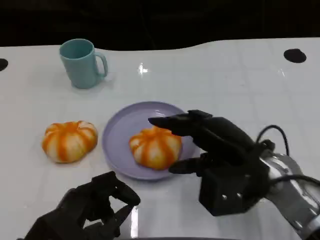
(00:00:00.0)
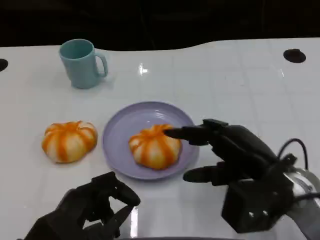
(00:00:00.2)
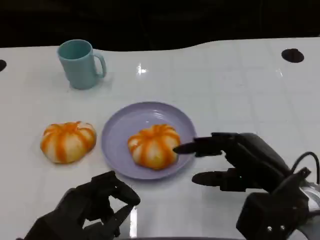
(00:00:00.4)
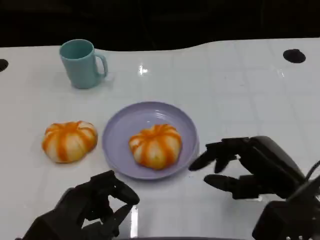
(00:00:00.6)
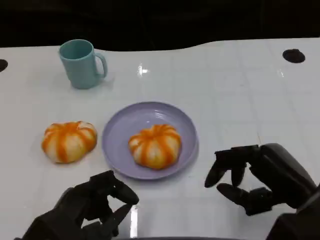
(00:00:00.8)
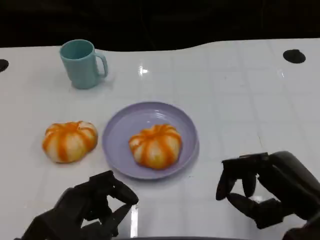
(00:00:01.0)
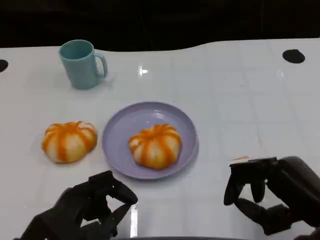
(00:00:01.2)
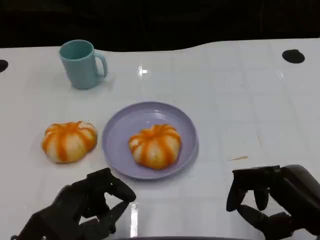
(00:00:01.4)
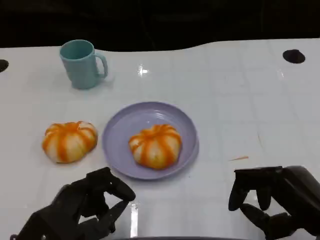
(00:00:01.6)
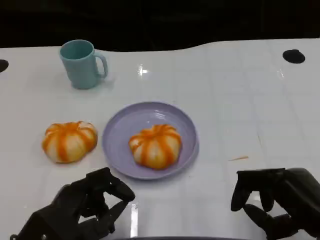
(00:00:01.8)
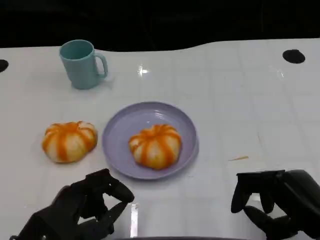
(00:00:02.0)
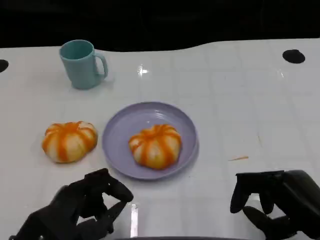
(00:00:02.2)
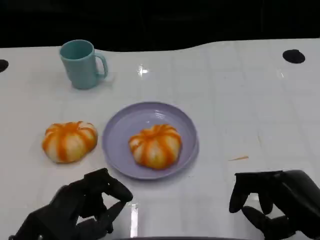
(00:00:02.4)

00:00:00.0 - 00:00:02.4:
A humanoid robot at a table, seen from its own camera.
Task of the whole recording: Grasp the bread from the table and place it into the plate.
00:00:00.0 - 00:00:01.2: The right hand heads backward and to the right, covering approximately 10 cm.
00:00:01.2 - 00:00:02.4: The hands move only a little.

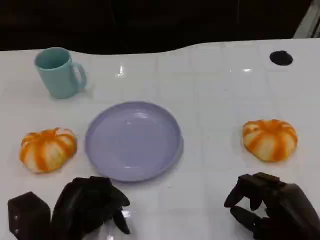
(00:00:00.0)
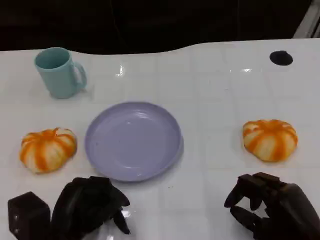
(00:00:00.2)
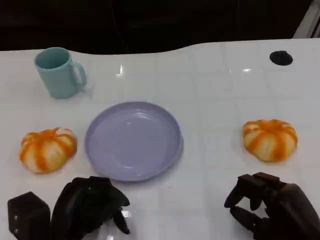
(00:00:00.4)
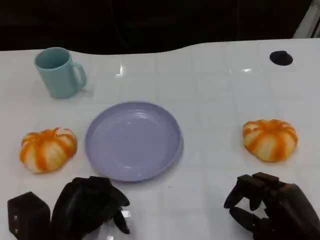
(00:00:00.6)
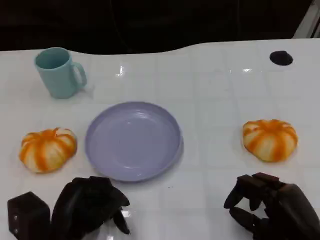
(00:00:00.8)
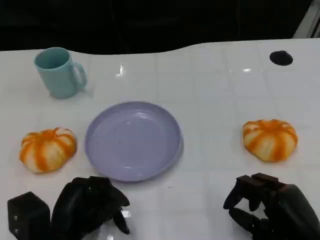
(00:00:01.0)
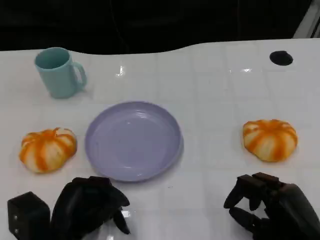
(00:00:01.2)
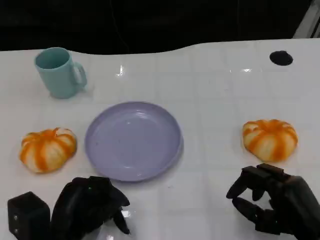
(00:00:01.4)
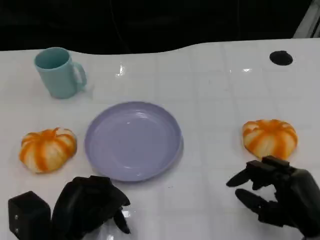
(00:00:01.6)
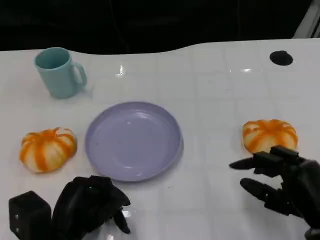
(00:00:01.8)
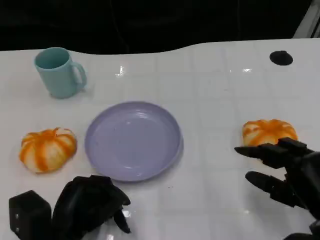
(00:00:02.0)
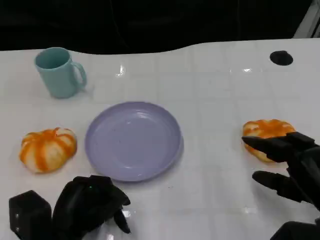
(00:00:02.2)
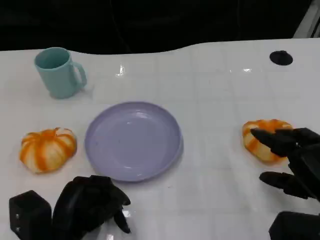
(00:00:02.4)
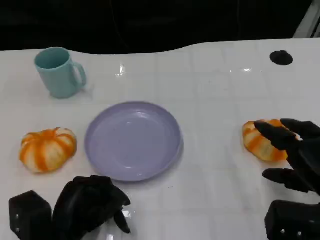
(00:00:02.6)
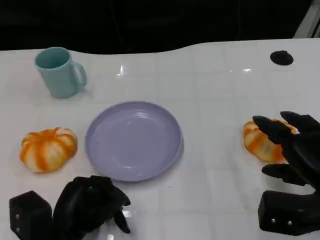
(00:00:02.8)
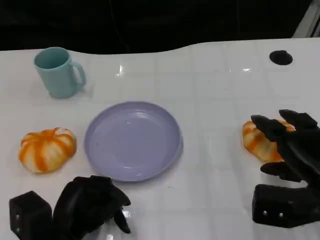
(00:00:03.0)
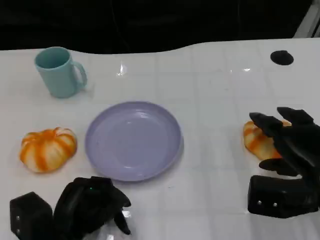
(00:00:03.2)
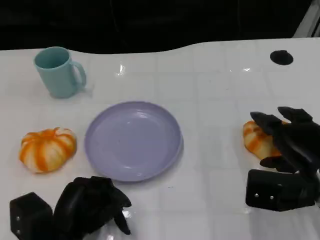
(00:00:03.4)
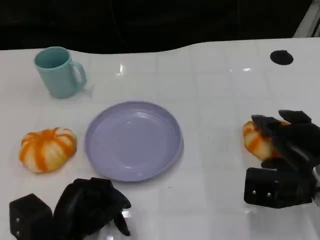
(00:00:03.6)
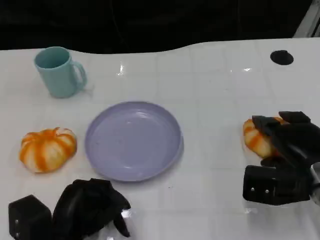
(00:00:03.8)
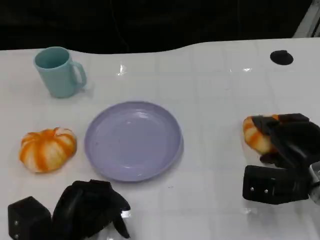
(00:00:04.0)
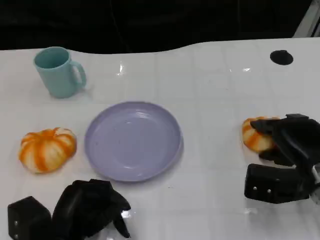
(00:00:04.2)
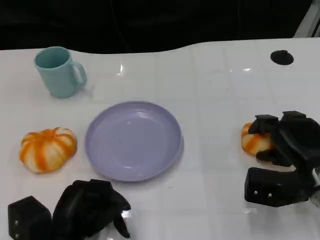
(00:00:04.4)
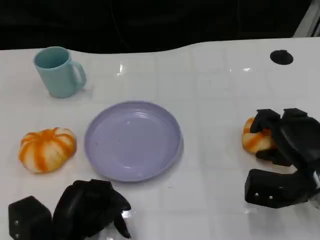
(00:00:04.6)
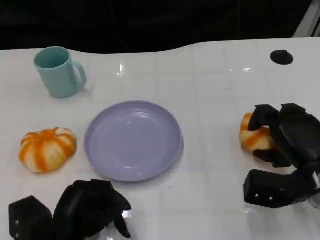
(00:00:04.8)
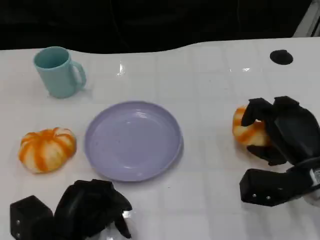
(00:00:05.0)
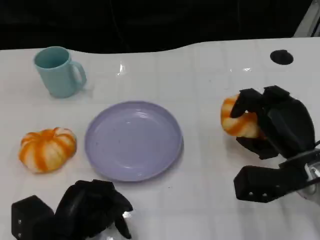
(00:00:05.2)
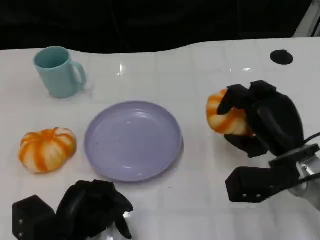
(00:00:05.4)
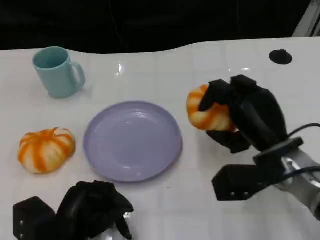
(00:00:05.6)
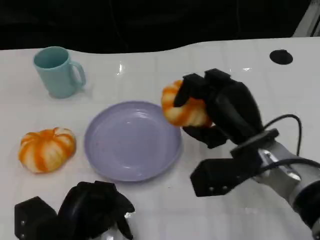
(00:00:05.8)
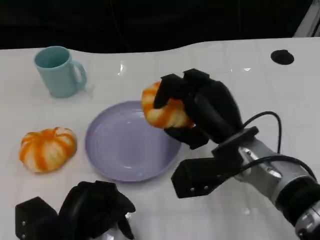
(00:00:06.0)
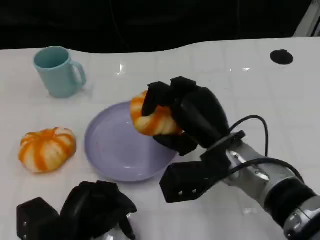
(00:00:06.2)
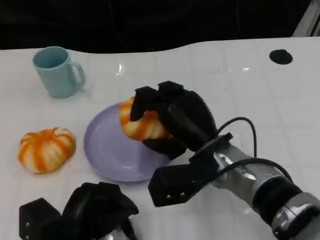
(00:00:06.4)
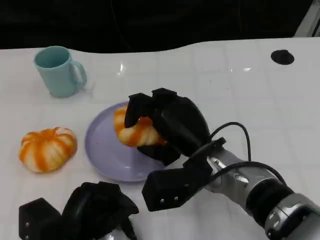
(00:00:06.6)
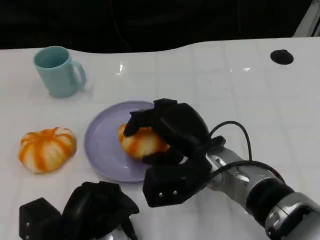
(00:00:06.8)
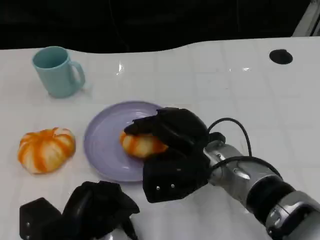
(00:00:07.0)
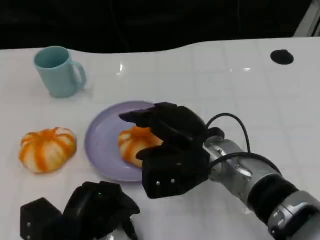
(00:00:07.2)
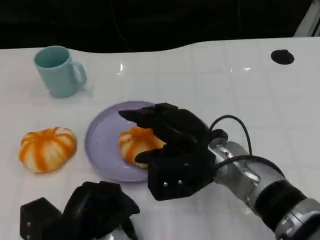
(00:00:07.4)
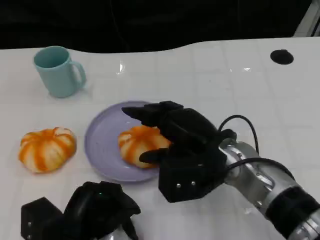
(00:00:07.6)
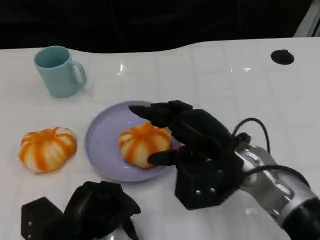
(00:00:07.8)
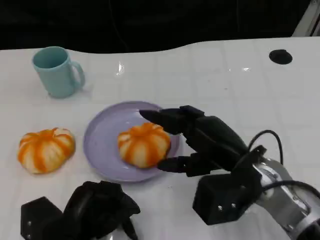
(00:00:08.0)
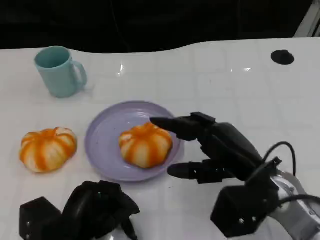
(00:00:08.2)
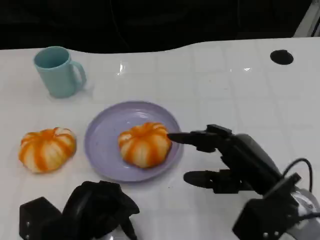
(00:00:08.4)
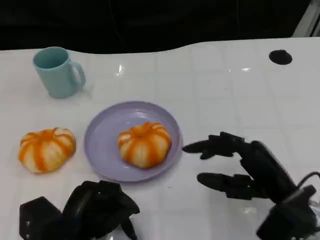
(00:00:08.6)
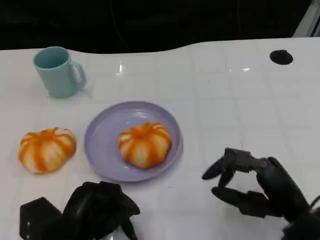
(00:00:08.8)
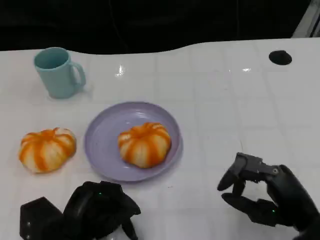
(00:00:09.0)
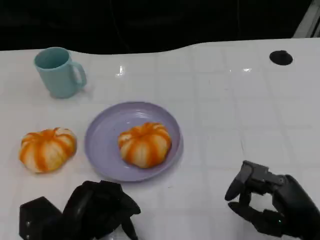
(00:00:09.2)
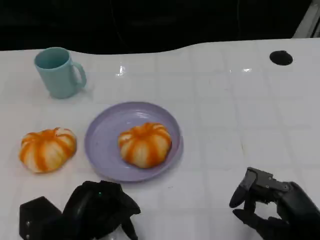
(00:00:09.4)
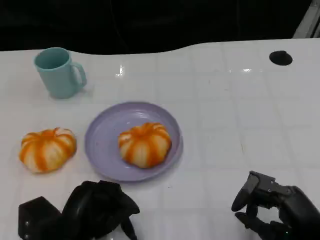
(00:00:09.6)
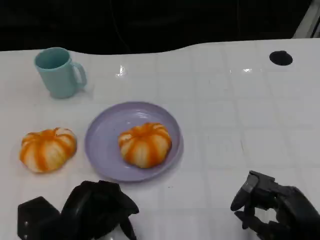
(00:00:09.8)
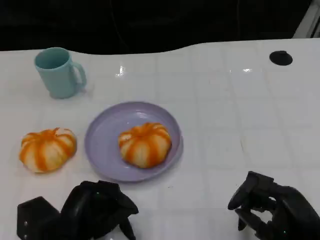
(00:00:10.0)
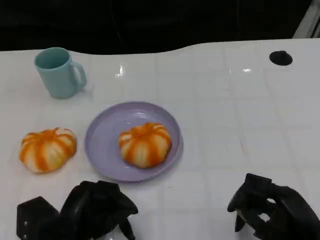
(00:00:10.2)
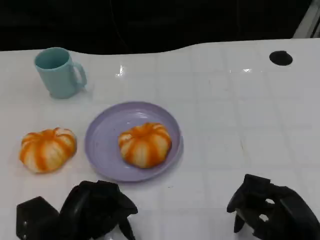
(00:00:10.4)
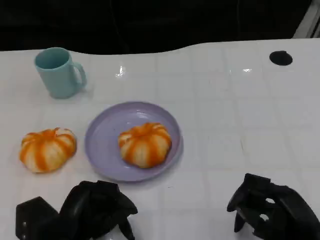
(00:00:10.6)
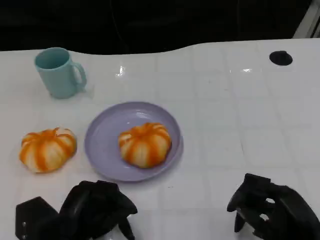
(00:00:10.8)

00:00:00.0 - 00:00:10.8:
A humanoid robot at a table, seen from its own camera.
Task of the whole recording: Grasp the bread from the table and place it into the plate.
00:00:00.0 - 00:00:01.6: The hands make only small movements.
00:00:01.6 - 00:00:03.0: The right hand travels forward by some 5 cm.
00:00:03.0 - 00:00:04.6: The right hand shifts by approximately 5 cm.
00:00:04.6 - 00:00:06.2: The right hand goes roughly 15 cm to the left.
00:00:07.8 - 00:00:09.2: The right hand shifts roughly 15 cm to the right, backward and downward.
00:00:09.2 - 00:00:10.8: The hands make only small movements.

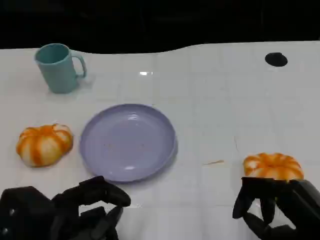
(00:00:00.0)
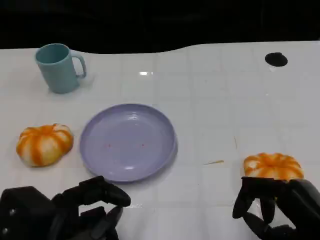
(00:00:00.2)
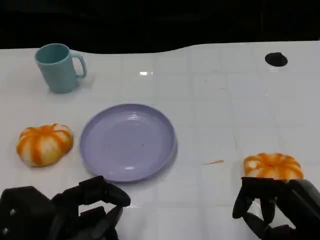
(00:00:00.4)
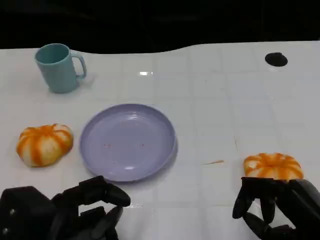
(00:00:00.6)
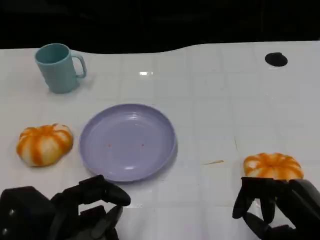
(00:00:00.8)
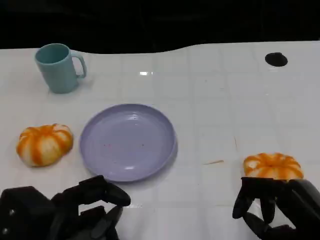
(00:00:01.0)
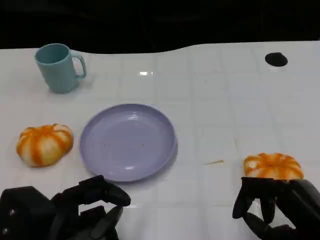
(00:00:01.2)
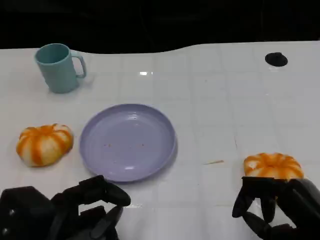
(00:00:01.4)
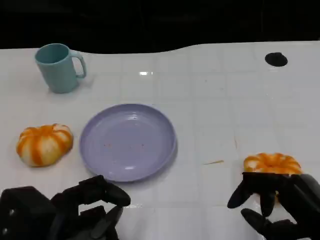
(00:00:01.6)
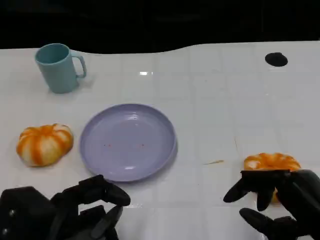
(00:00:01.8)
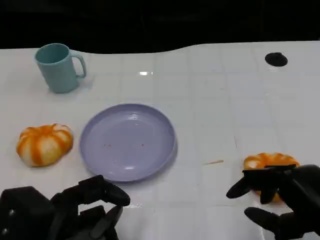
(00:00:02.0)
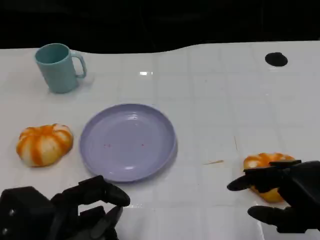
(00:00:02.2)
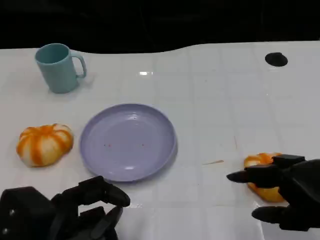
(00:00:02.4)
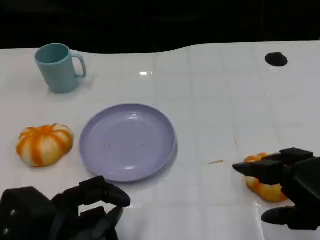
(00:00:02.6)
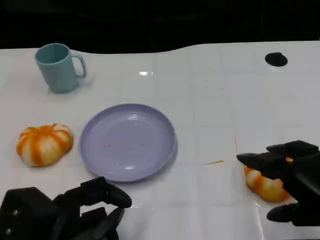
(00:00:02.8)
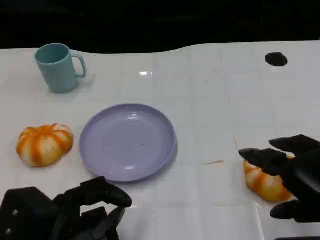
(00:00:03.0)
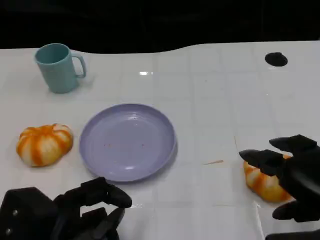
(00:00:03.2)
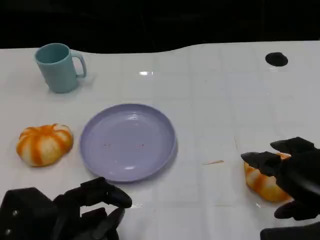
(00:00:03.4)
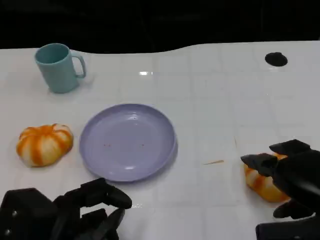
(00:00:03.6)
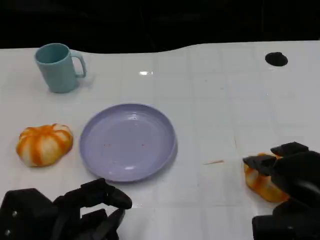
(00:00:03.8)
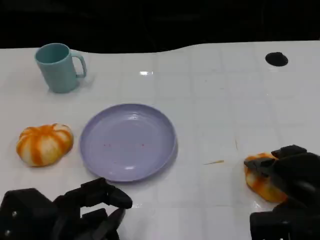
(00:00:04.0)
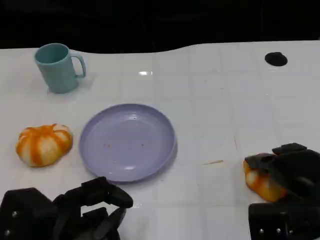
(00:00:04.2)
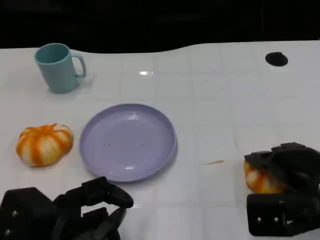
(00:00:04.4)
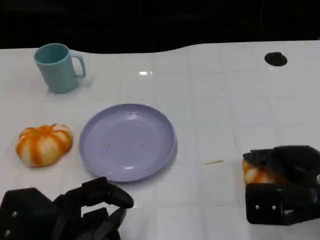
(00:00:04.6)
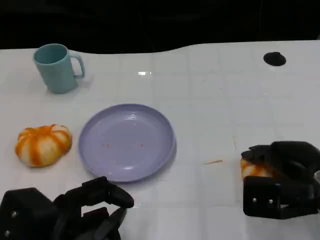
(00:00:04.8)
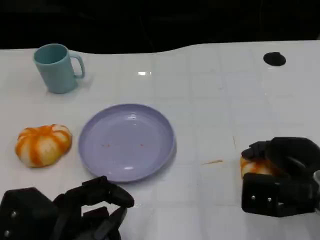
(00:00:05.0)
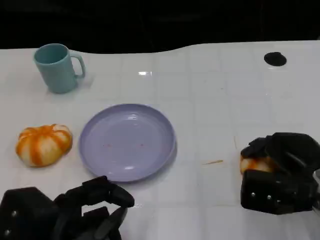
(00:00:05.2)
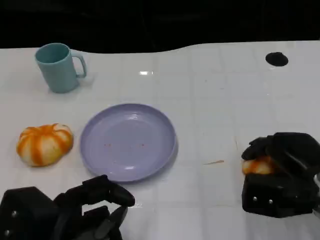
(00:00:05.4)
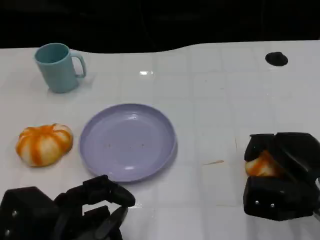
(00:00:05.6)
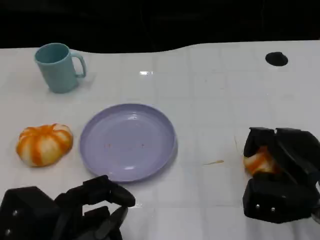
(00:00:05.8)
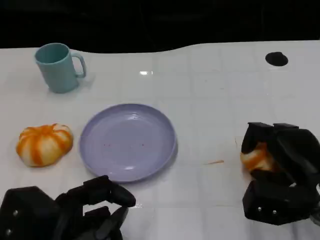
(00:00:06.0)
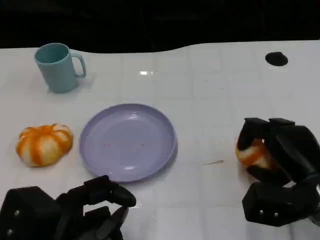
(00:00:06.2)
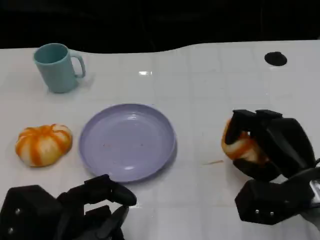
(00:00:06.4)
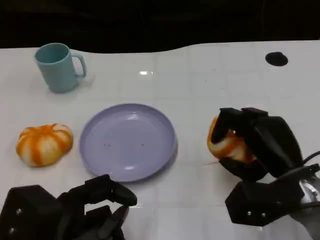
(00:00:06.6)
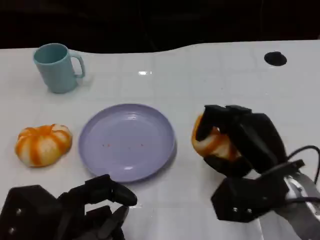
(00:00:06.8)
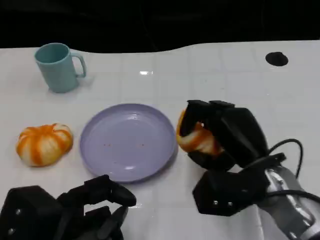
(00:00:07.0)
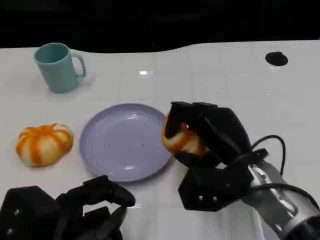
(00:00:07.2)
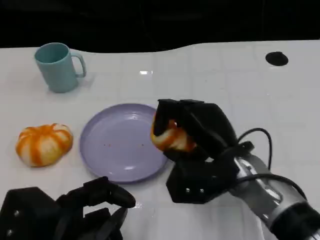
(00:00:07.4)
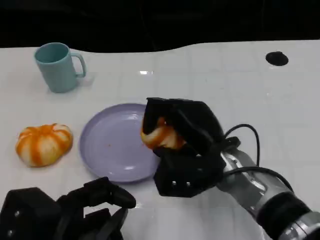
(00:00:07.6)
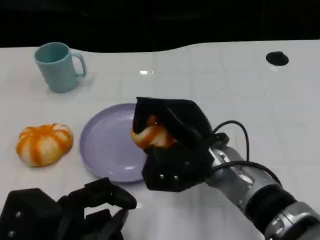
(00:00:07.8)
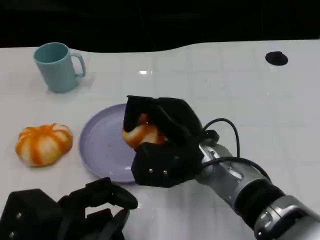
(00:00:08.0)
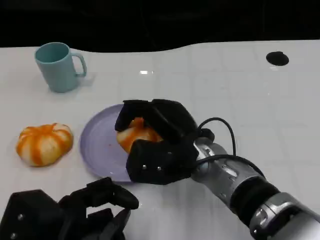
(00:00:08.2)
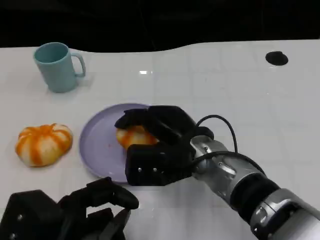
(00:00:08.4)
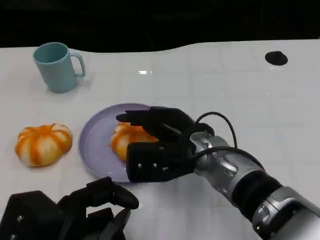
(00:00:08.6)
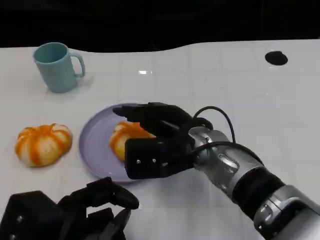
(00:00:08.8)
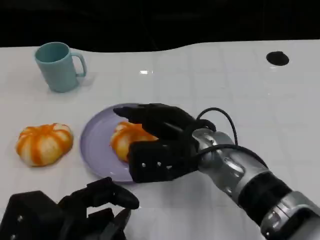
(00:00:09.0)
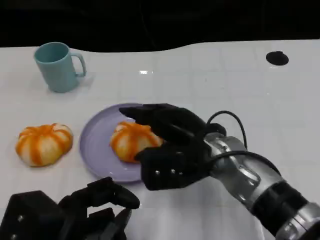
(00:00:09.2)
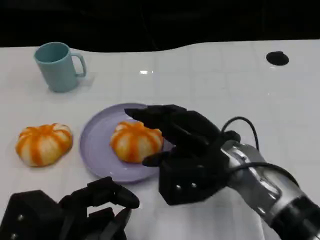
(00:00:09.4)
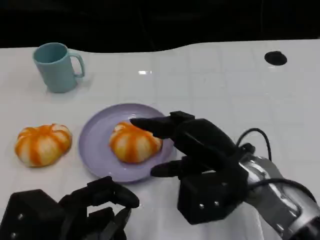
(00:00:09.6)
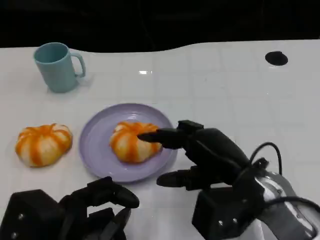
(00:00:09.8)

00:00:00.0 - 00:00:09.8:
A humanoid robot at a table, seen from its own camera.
Task of the whole recording: Grasp the bread from the table and place it into the plate.
00:00:00.0 - 00:00:01.4: Both hands stay put.
00:00:01.4 - 00:00:02.8: The right hand shifts roughly 5 cm upward.
00:00:02.8 - 00:00:04.2: The right hand moves forward and downward, some 10 cm.
00:00:05.6 - 00:00:07.0: The right hand is displaced to the left by some 10 cm.
00:00:07.0 - 00:00:08.4: The right hand goes approximately 10 cm to the left.
00:00:08.4 - 00:00:09.8: The right hand moves to the right and backward, roughly 10 cm.
